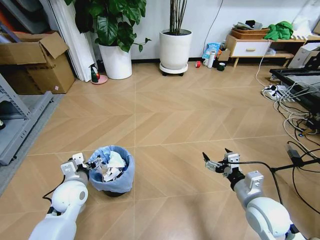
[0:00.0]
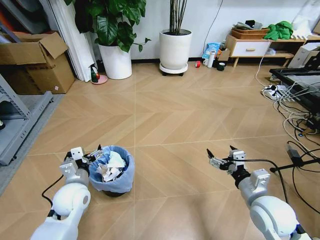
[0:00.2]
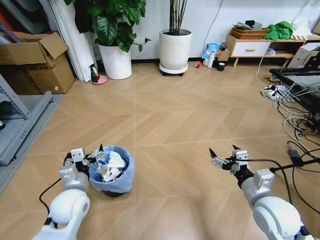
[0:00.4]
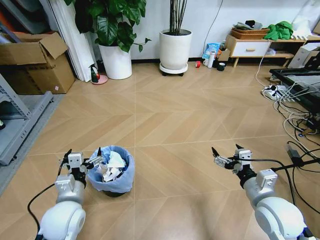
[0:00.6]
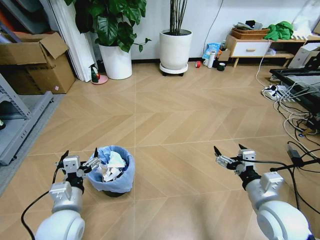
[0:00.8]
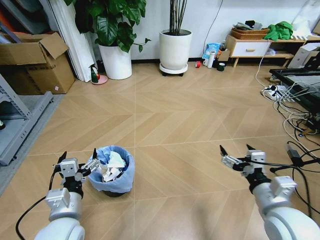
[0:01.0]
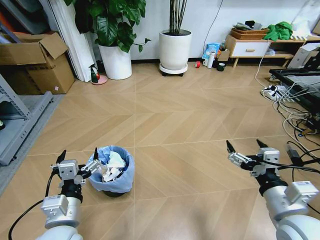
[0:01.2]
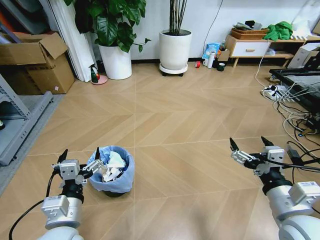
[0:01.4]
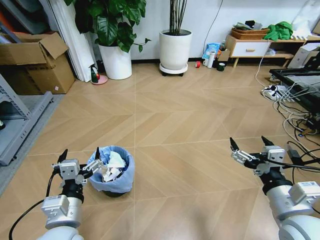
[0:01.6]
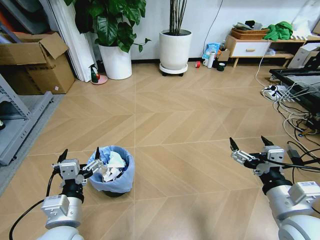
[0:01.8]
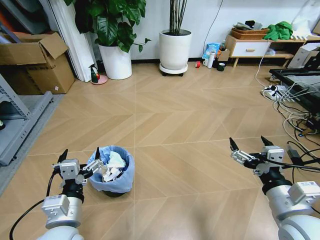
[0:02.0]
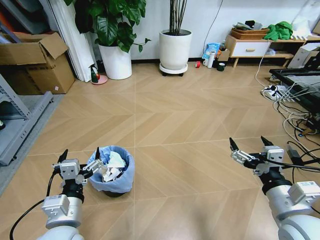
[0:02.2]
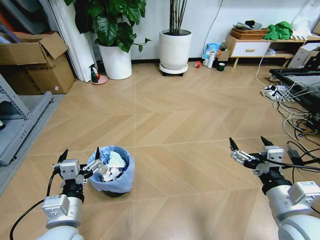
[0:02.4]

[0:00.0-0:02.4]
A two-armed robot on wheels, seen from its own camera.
Task of the whole recording: Pick up the trash bin and place the garbage on the floor into it.
0:00.0 to 0:01.2: The right gripper goes approximately 10 cm upward and backward. Meanwhile the left gripper moves backward, upward and to the right, roughly 15 cm.
0:01.2 to 0:02.4: Both grippers stay put.

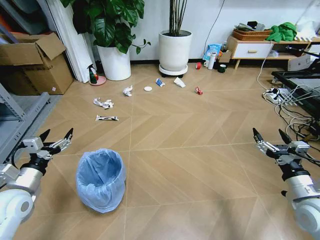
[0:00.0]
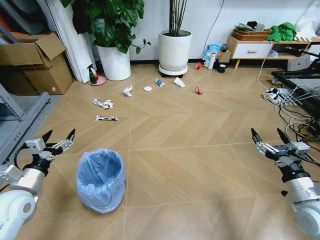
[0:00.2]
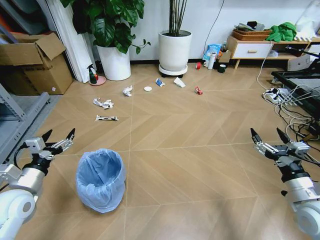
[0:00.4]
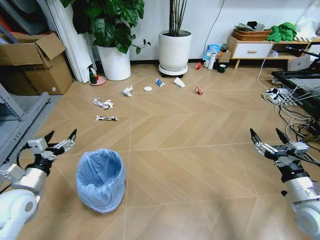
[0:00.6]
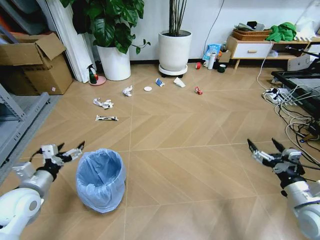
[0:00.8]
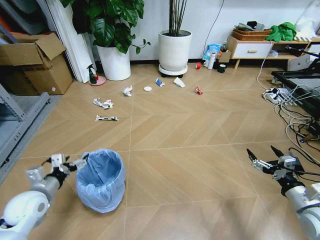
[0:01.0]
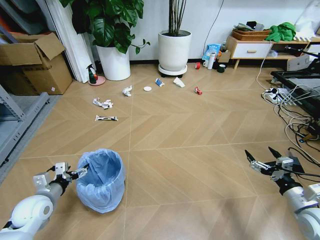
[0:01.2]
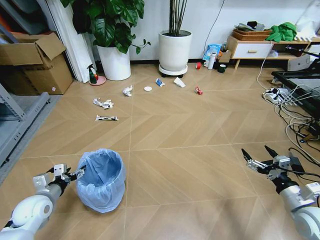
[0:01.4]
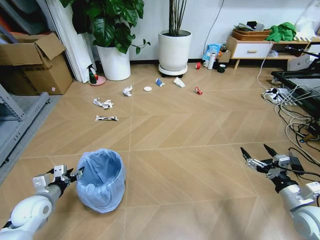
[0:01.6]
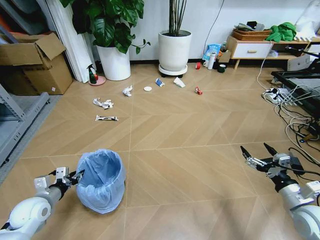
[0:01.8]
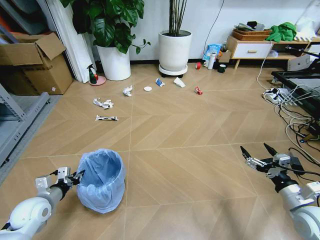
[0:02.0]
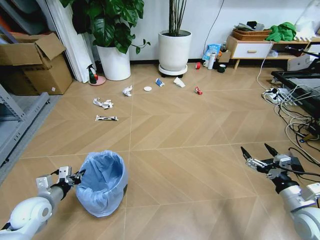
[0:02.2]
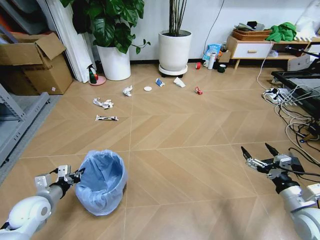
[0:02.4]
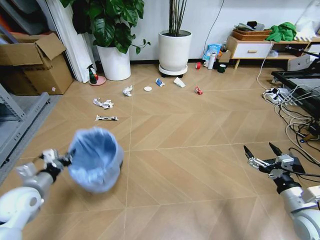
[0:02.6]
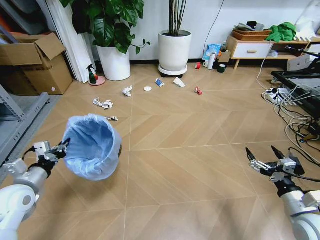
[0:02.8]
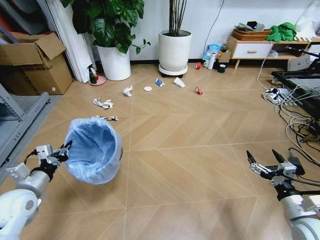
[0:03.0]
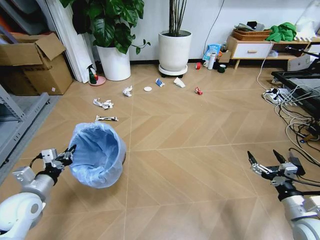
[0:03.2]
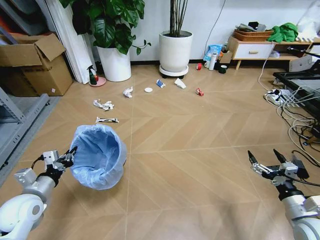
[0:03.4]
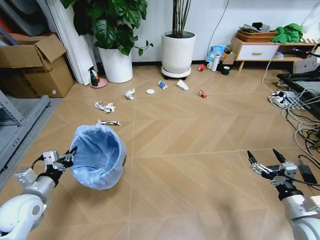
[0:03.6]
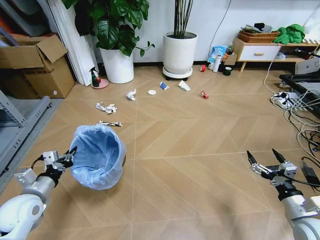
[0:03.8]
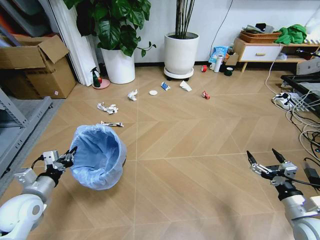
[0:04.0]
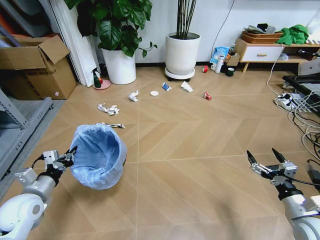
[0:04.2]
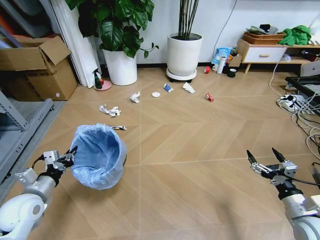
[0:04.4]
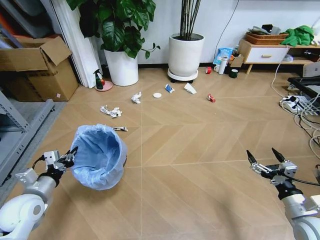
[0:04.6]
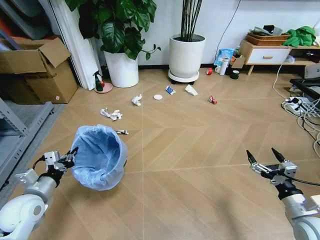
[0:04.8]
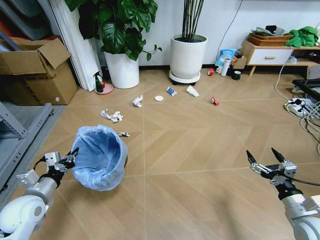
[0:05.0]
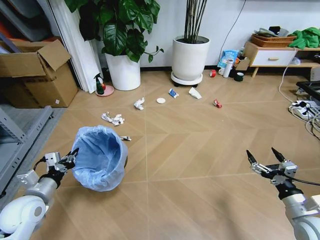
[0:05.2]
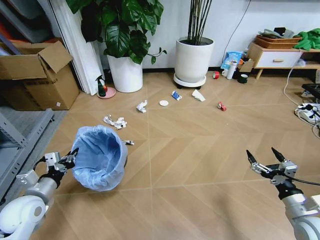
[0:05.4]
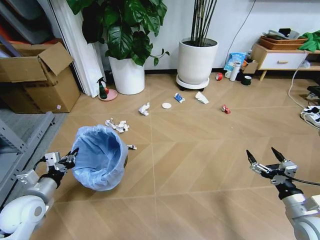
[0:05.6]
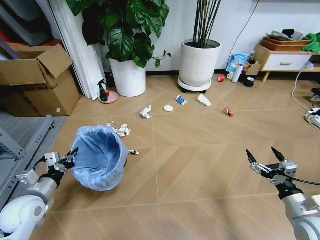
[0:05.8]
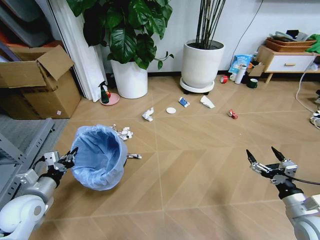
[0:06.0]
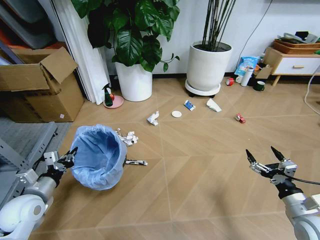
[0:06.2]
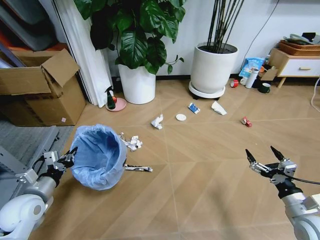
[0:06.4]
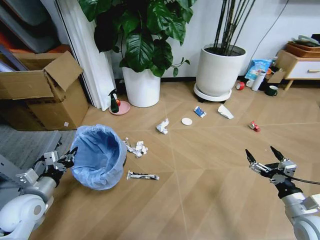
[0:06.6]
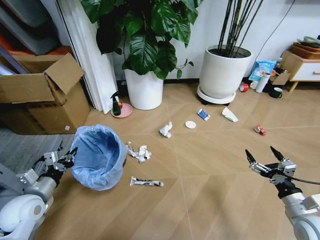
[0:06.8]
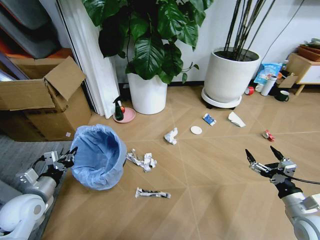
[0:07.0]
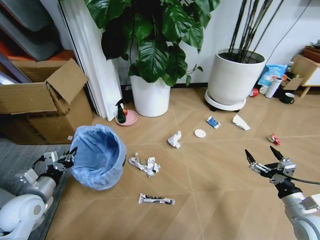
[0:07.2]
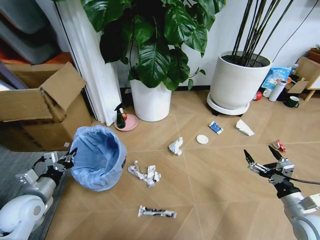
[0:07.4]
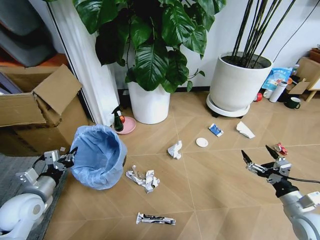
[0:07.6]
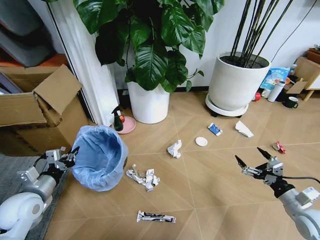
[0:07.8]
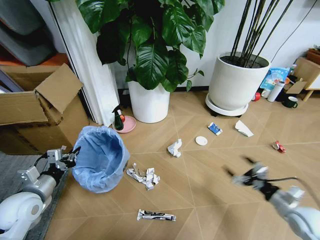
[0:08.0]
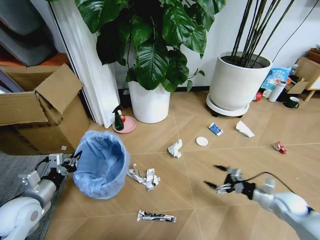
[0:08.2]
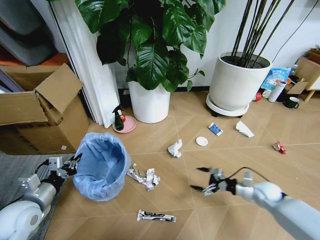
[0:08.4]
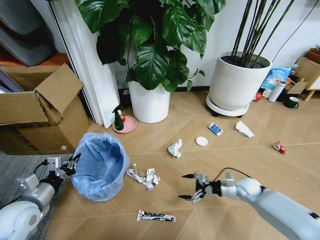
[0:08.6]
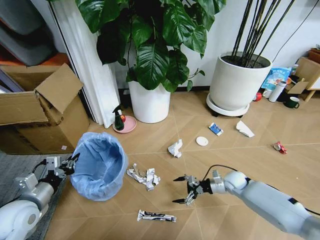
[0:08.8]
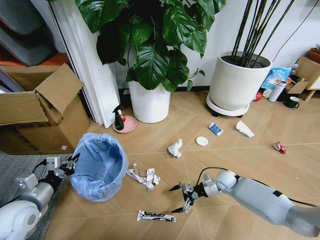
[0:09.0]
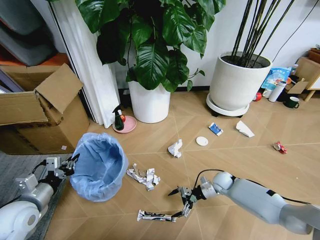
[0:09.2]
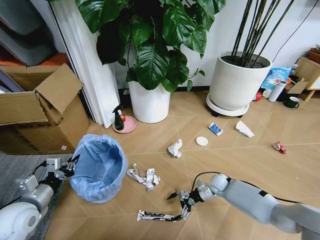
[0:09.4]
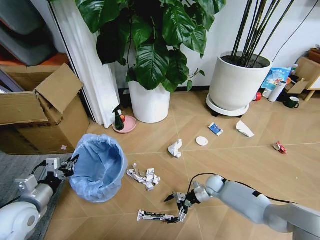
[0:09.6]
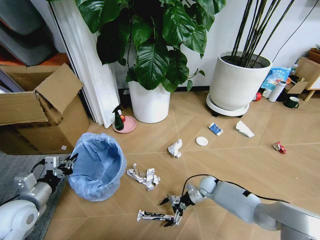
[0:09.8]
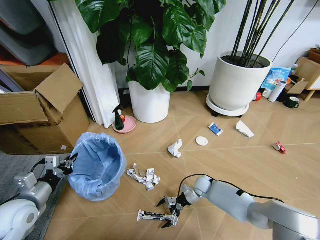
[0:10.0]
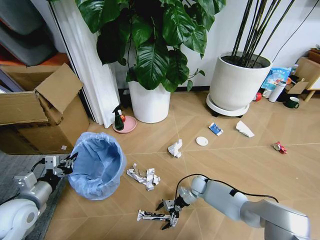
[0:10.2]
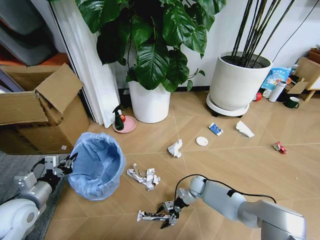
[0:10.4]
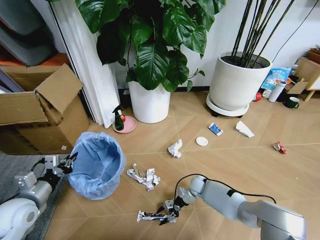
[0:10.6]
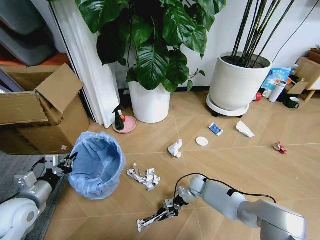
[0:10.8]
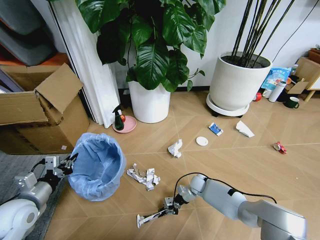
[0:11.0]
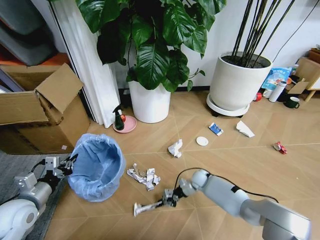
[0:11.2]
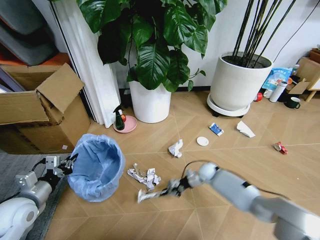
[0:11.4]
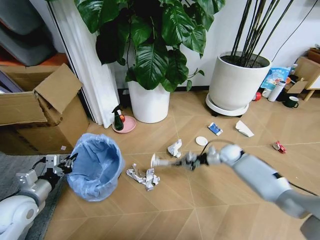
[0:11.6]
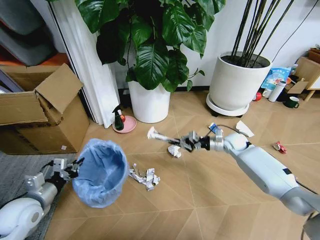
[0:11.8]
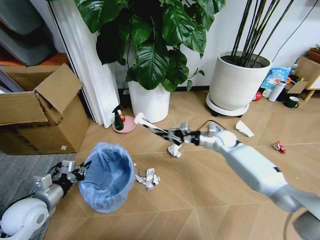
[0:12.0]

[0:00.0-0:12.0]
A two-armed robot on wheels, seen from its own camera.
Task of the whole recording: Pick up the trash bin and place the garbage on the floor into it.
0:01.6 to 0:03.0: The left gripper heads upward, covering roughly 10 cm, and closes up.
0:07.6 to 0:09.0: The right gripper is displaced forward, downward and to the left by about 30 cm.
0:09.0 to 0:10.4: The right gripper heads to the left and downward, covering about 15 cm.
0:10.4 to 0:12.0: The right gripper moves upward, some 25 cm, and closes its fingers.

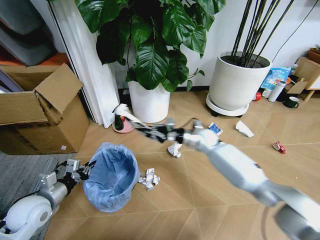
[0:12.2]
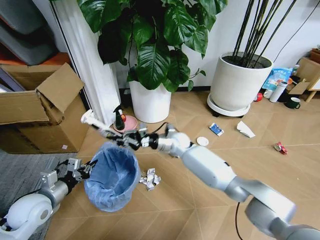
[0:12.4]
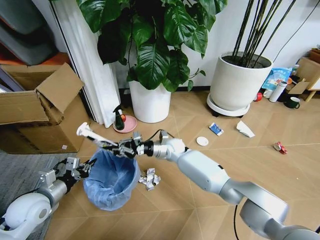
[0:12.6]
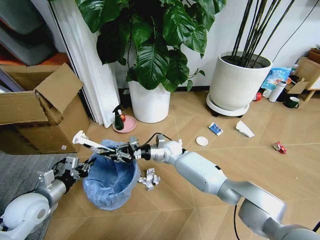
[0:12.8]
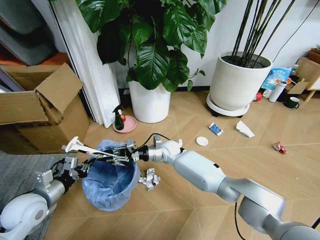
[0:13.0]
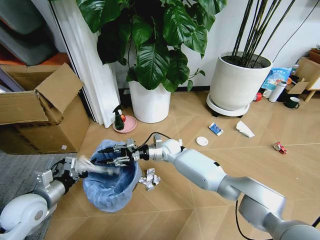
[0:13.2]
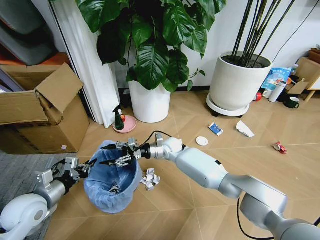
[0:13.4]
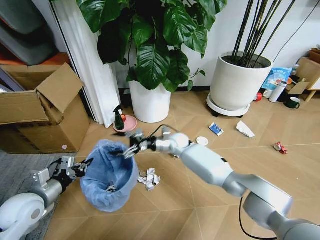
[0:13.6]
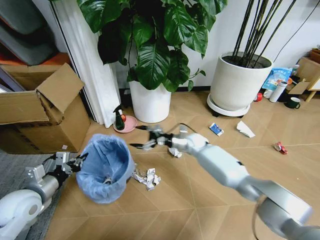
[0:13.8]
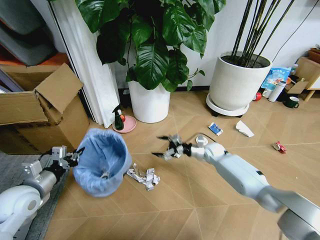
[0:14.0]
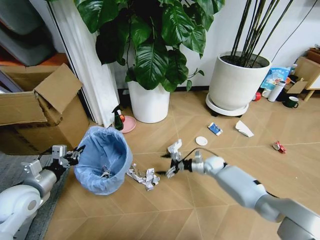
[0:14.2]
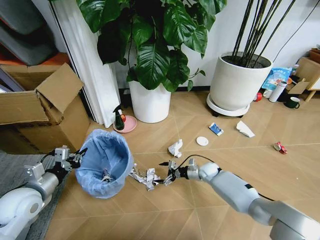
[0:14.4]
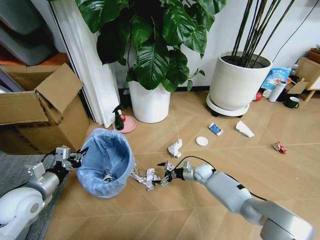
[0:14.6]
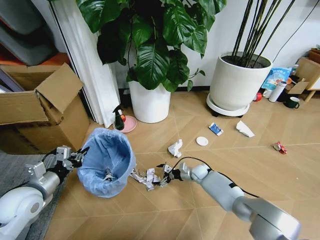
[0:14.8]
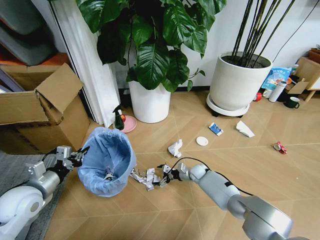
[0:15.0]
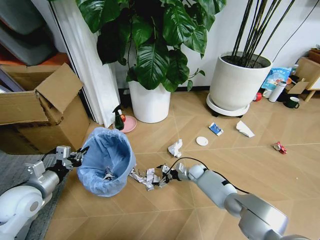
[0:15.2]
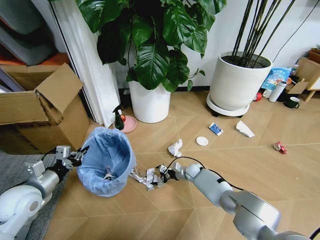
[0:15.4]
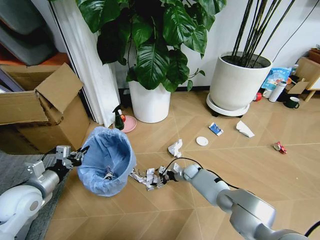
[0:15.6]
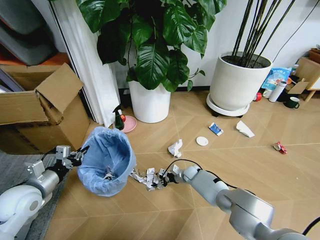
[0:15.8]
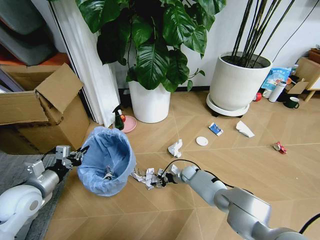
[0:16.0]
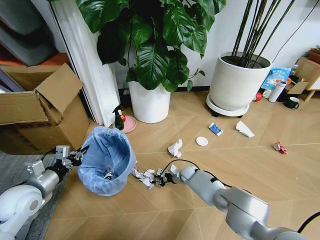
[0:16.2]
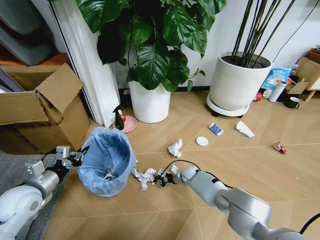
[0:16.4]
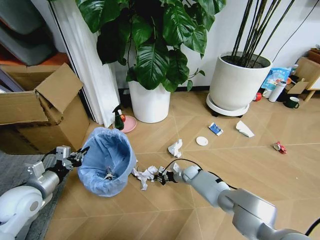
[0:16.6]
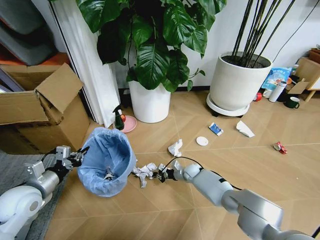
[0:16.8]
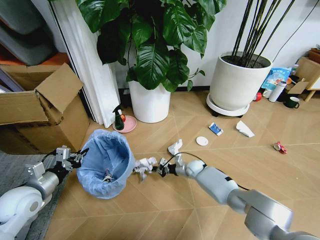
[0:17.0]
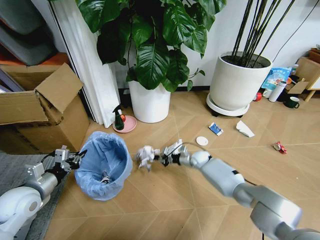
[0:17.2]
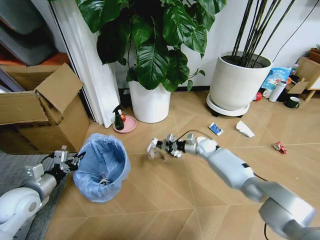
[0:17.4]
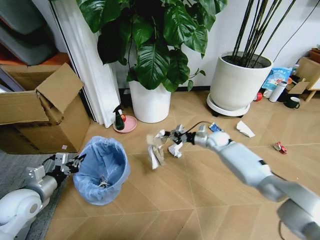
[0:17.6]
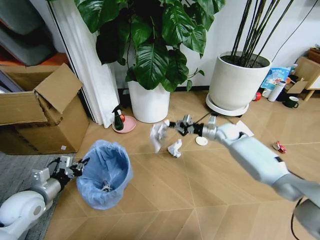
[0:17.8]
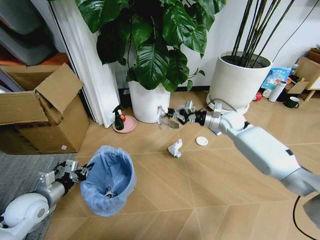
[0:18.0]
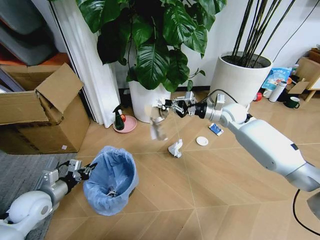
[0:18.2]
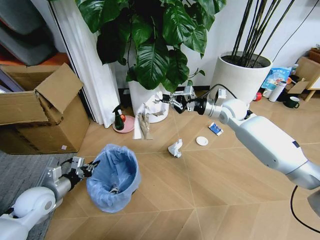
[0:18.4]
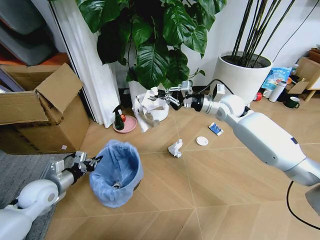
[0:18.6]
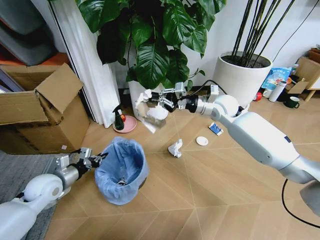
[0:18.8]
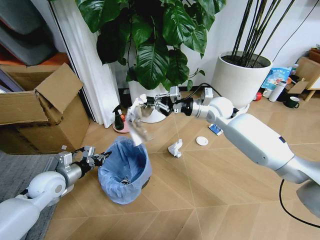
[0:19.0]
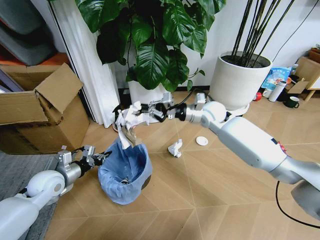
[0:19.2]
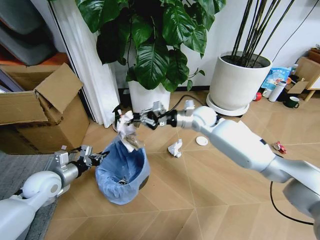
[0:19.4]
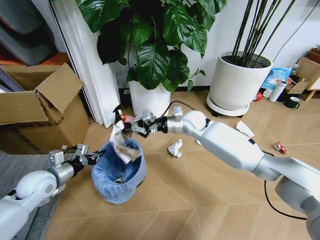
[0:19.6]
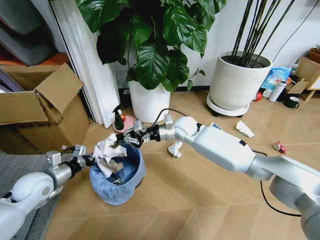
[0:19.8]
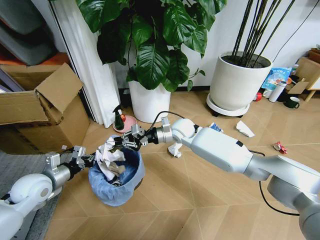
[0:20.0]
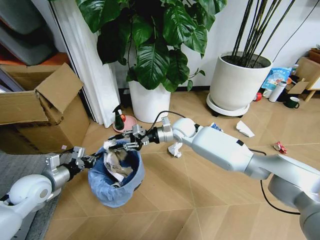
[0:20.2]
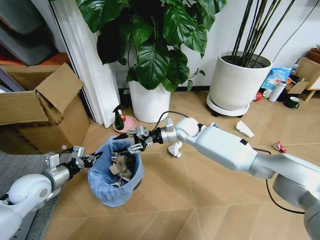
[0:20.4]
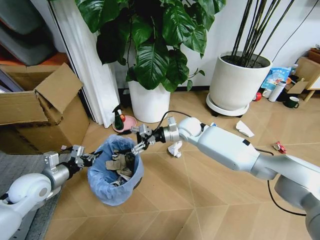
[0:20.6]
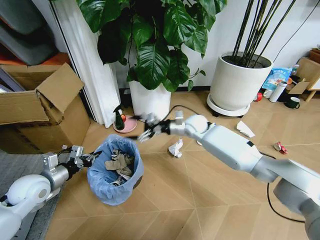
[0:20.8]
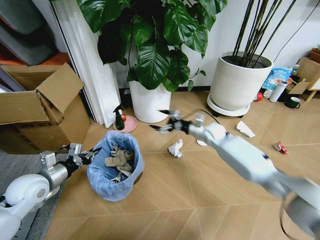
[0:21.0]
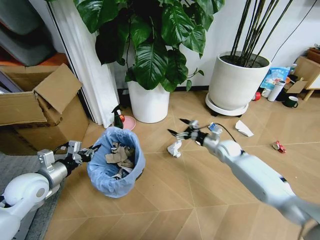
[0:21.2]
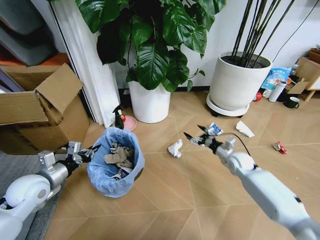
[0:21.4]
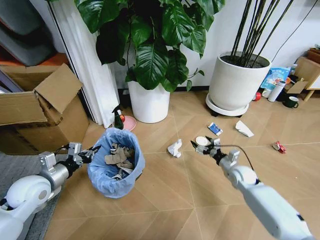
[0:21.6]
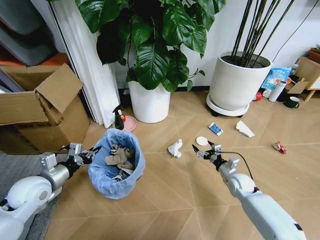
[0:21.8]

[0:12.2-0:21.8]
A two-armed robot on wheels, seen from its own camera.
Task of the whole recording: Pick up the trash bin and place the garbage on the floor into it.
0:12.2 to 0:13.8: The right gripper reaches approximately 15 cm to the left, then returns, and opens up.
0:13.8 to 0:15.4: The right gripper heads downward, covering about 20 cm.
0:15.4 to 0:17.0: The right gripper closes.
0:17.0 to 0:18.6: The right gripper travels upward by roughly 35 cm, while the left gripper changes place by approximately 5 cm.
0:18.6 to 0:20.2: The right gripper shifts approximately 20 cm to the left and downward.
0:20.2 to 0:21.8: The right gripper travels to the right, downward and backward by approximately 35 cm, and opens.
